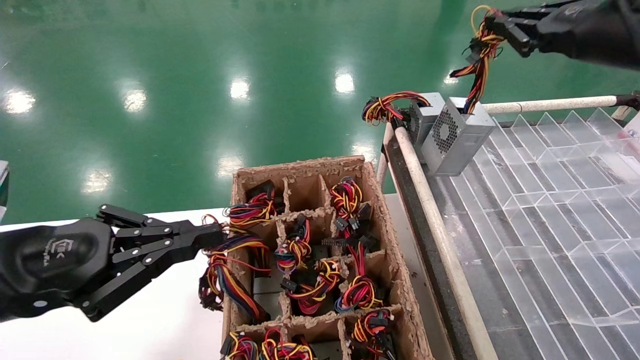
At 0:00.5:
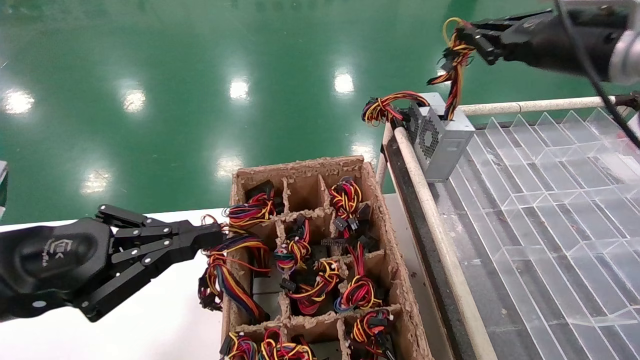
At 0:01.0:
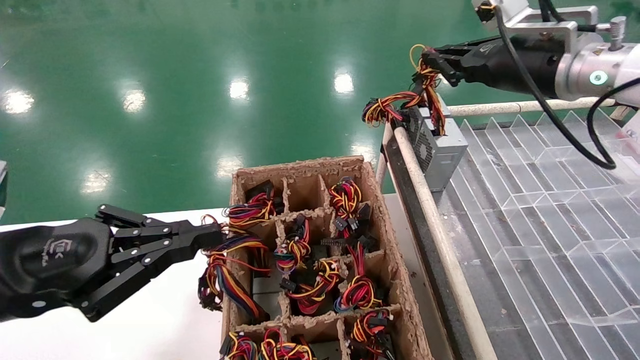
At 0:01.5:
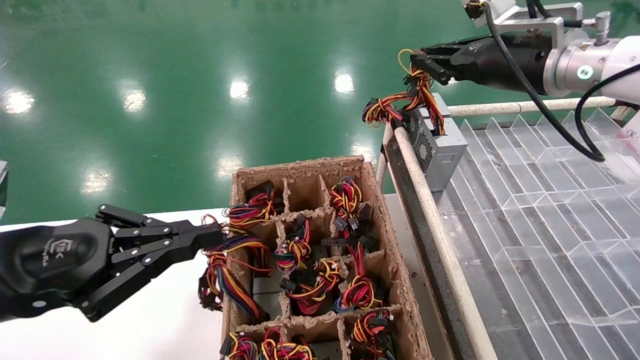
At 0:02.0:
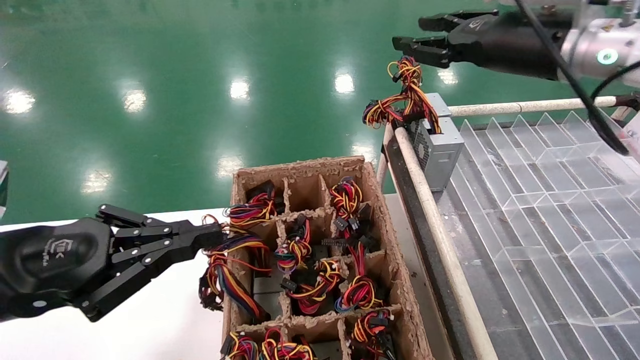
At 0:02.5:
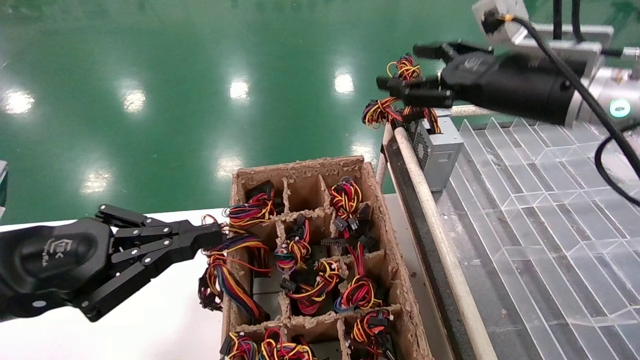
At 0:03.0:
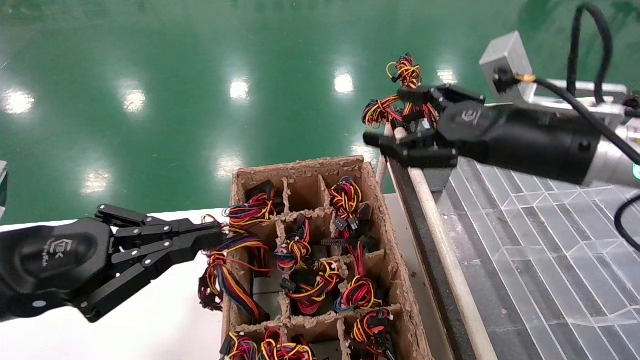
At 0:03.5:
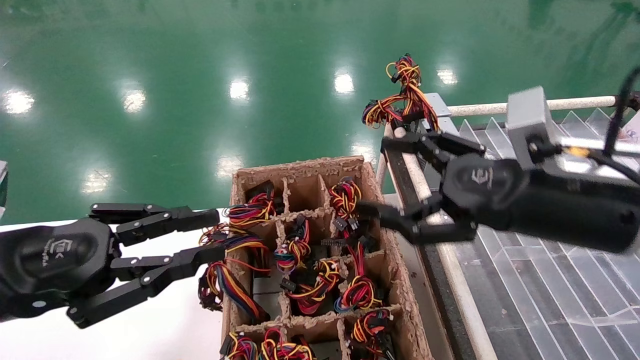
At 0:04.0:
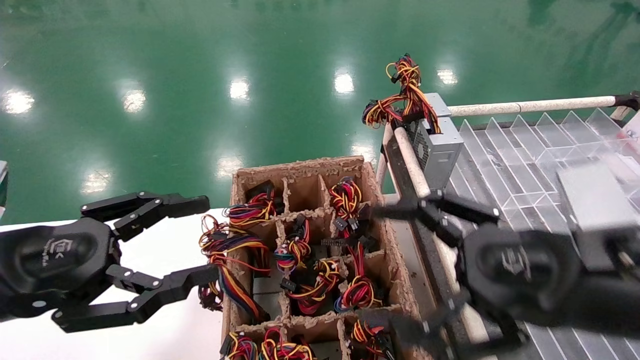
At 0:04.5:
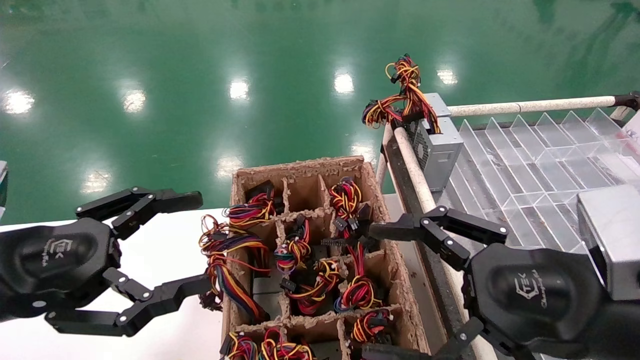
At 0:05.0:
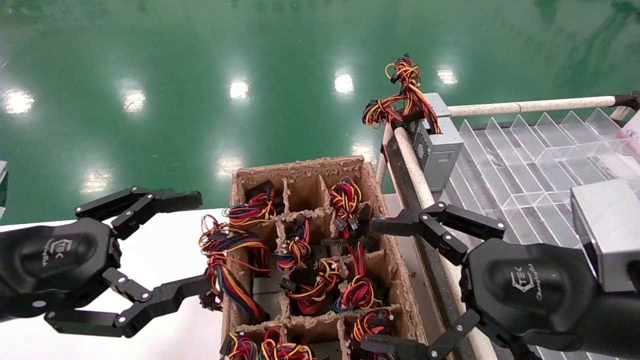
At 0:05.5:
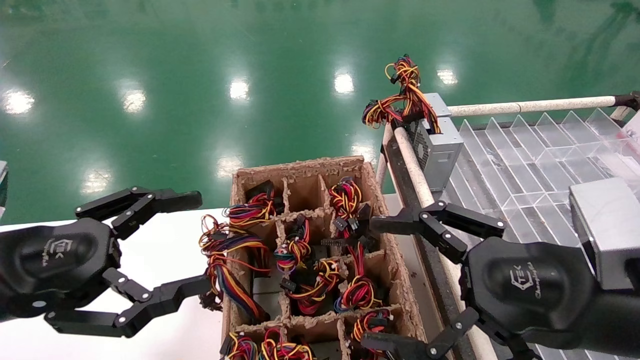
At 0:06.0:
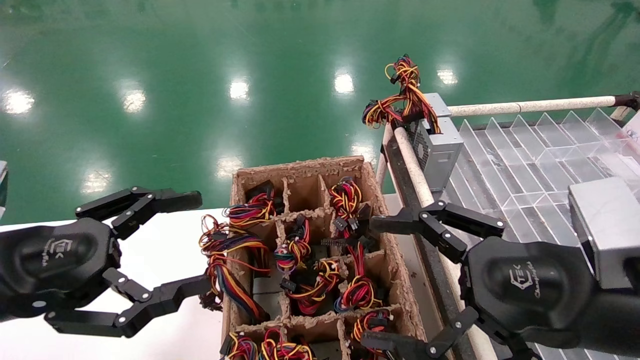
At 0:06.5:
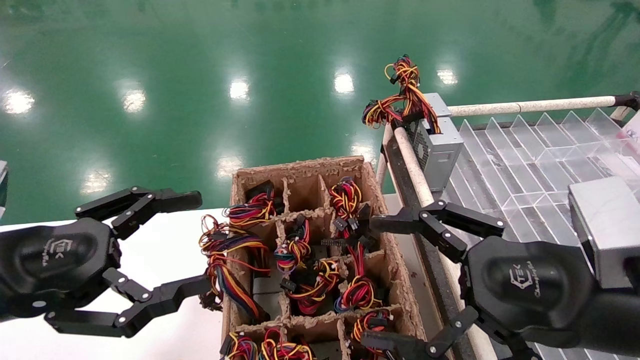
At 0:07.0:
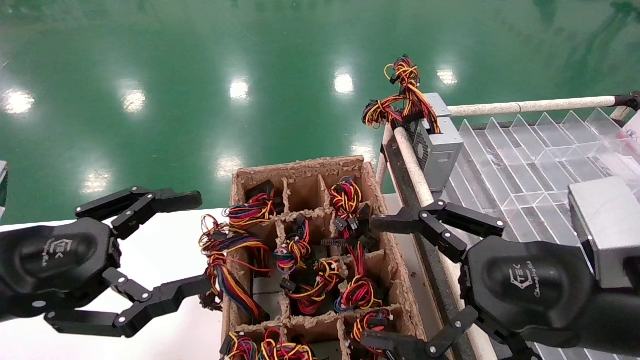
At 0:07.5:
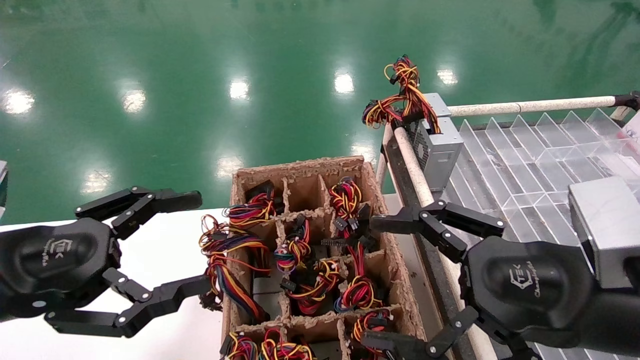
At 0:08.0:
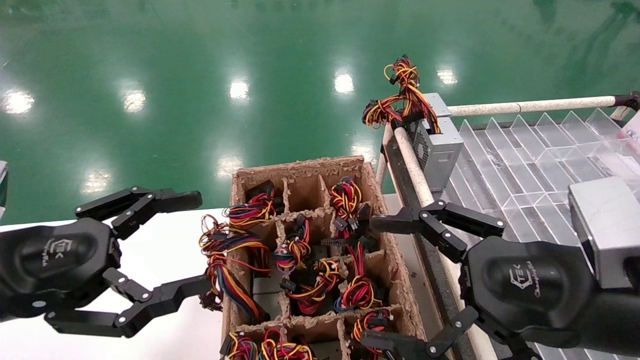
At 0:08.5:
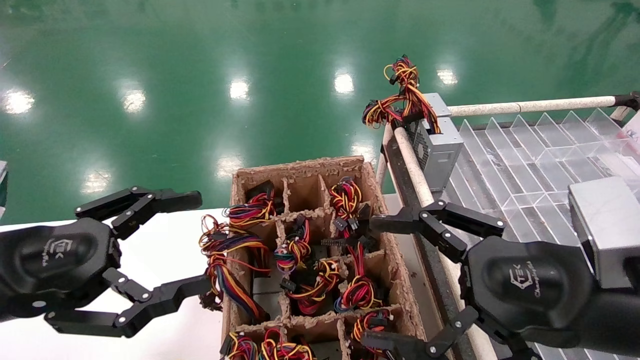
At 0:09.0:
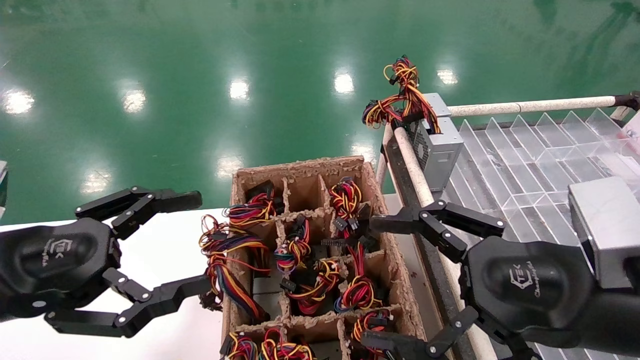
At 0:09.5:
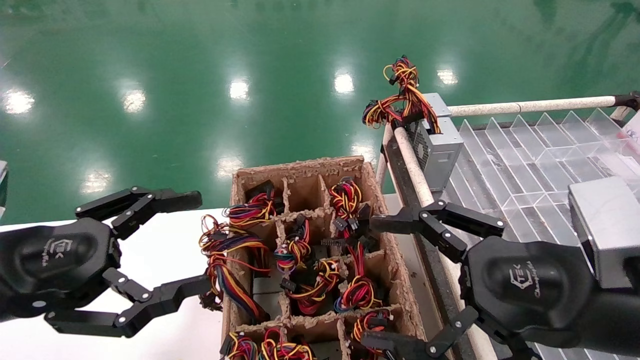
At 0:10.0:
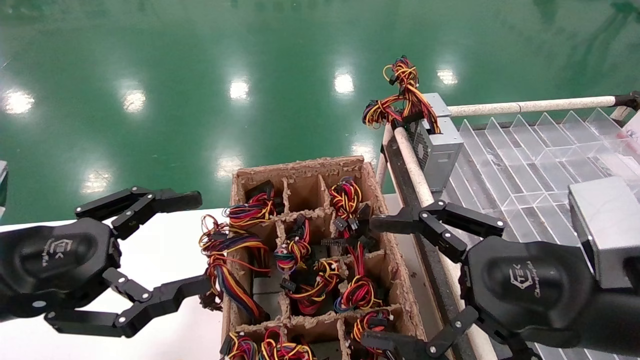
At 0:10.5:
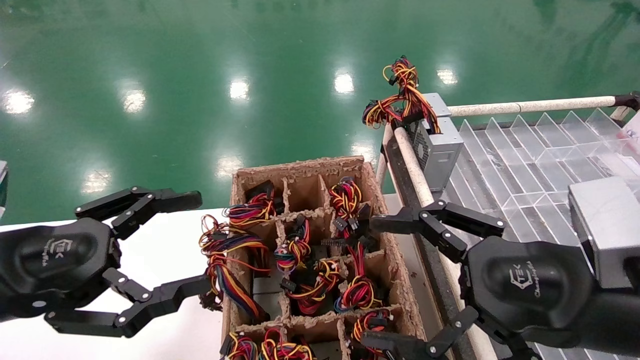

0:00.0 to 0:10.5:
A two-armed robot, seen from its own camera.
0:00.0 to 0:02.0: The right gripper moves to the left, roughly 5 cm.
0:02.0 to 0:04.0: The right gripper goes approximately 25 cm backward and downward, and opens up. The left gripper opens its fingers.
0:04.0 to 0:06.5: The left gripper opens.
0:06.5 to 0:10.5: Both grippers stay about where they are.
